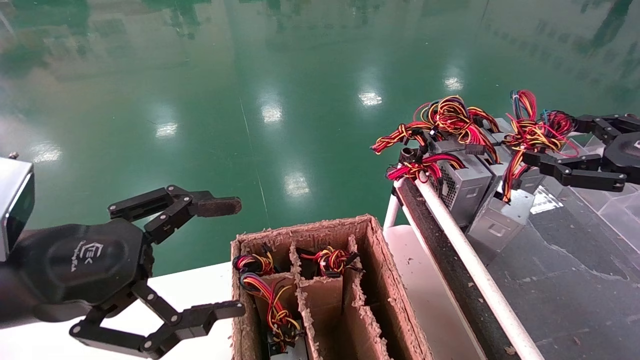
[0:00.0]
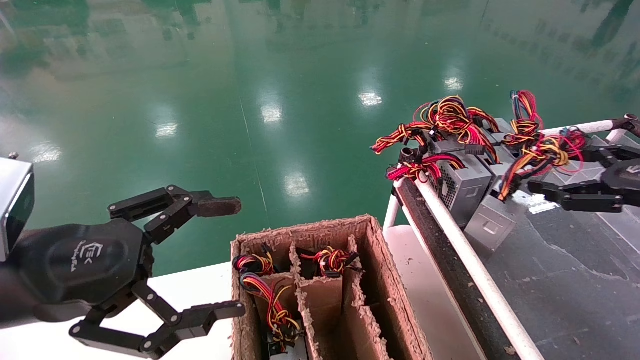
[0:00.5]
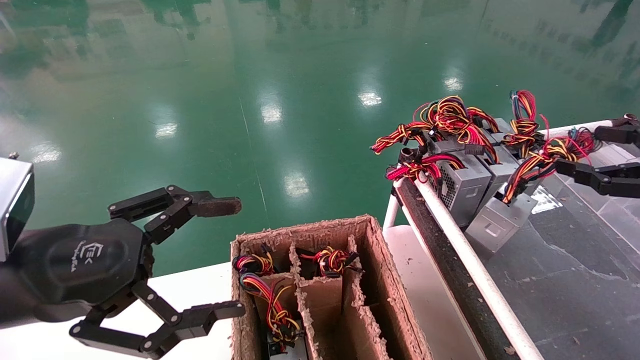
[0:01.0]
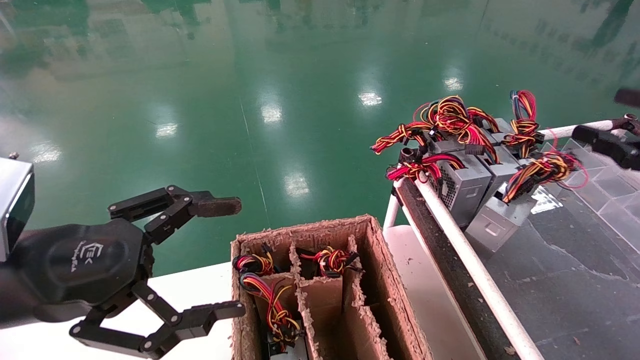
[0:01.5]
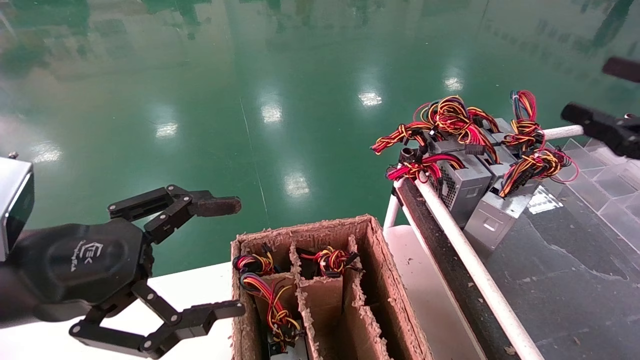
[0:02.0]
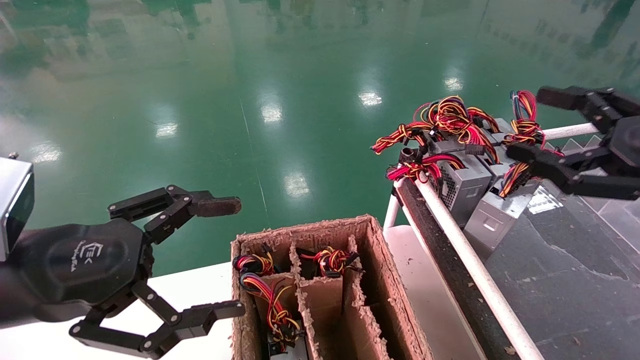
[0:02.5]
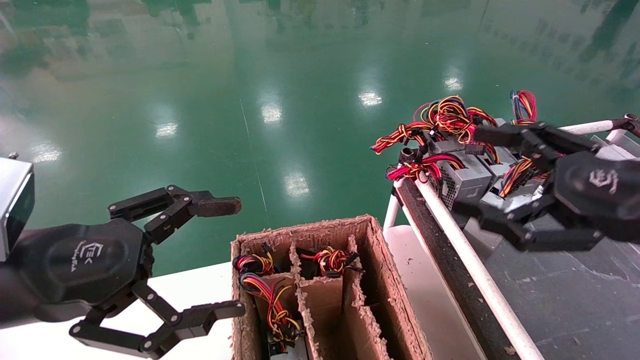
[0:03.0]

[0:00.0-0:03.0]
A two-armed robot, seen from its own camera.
0:00.0 to 0:01.5: The right gripper ends up approximately 5 cm from where it was.
0:01.5 to 0:03.0: The right gripper heads to the left, covering approximately 15 cm.

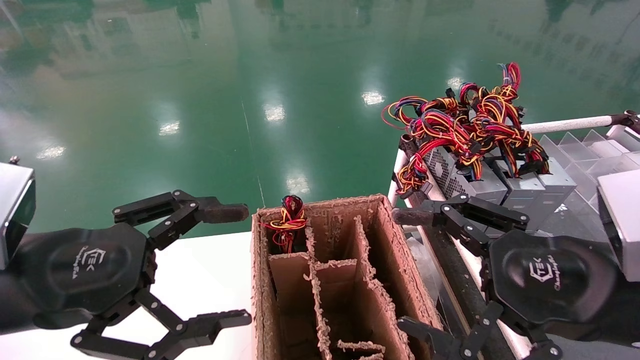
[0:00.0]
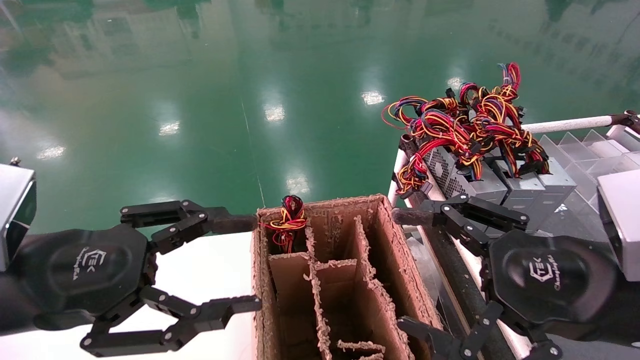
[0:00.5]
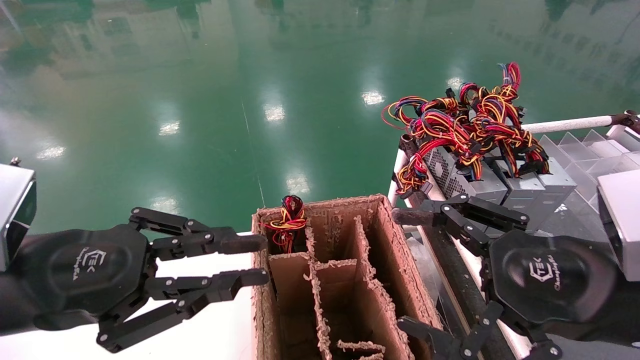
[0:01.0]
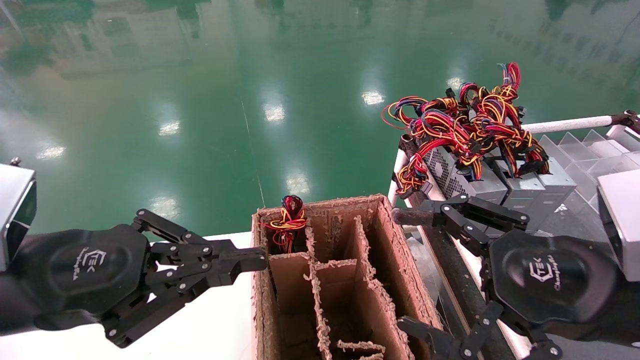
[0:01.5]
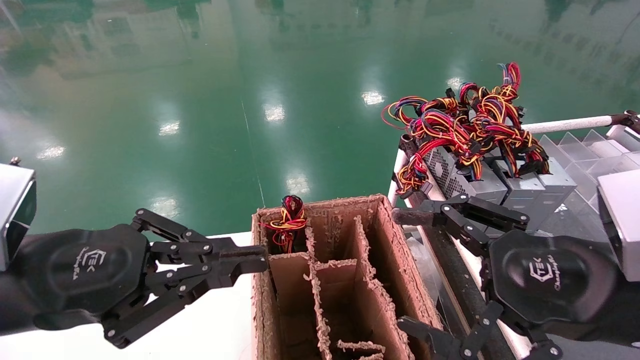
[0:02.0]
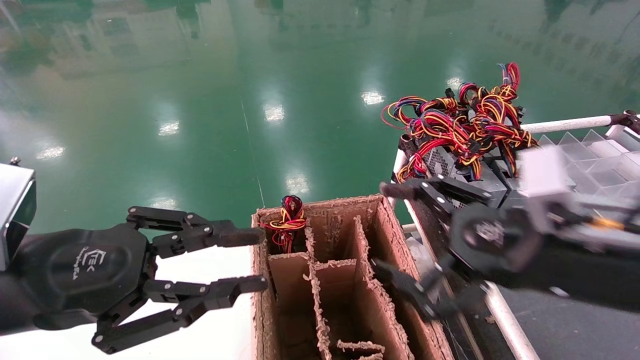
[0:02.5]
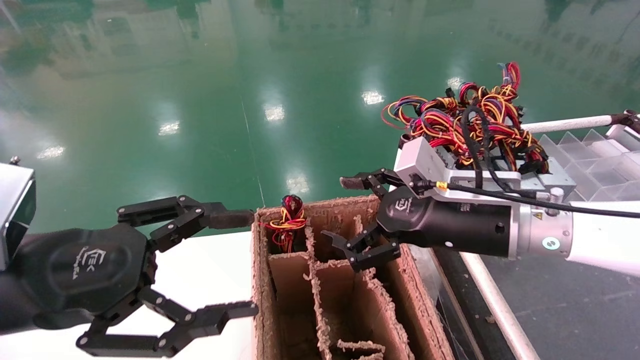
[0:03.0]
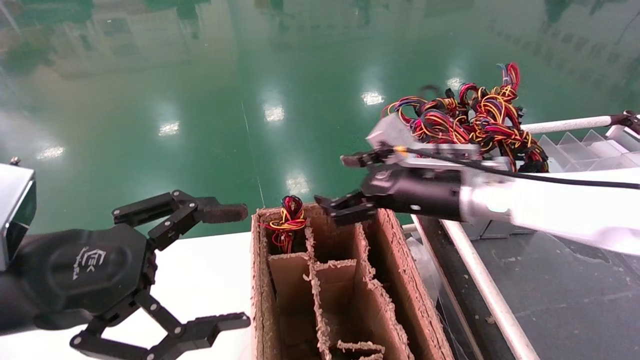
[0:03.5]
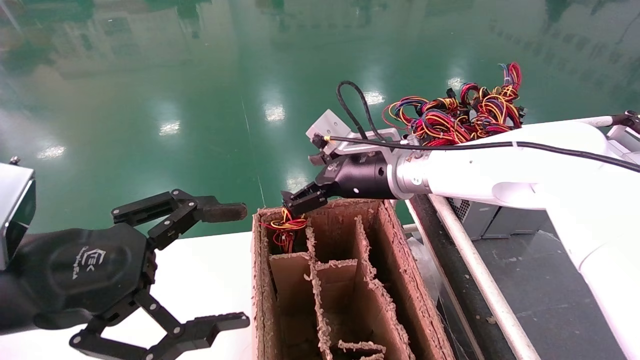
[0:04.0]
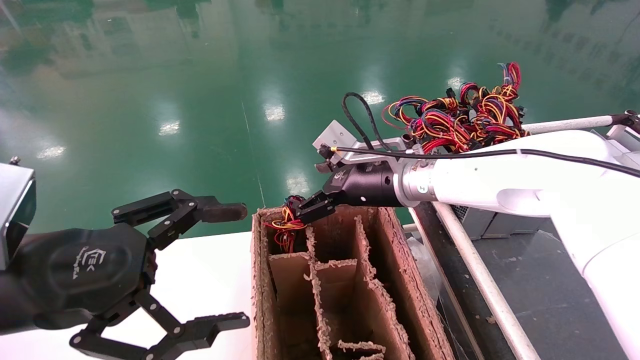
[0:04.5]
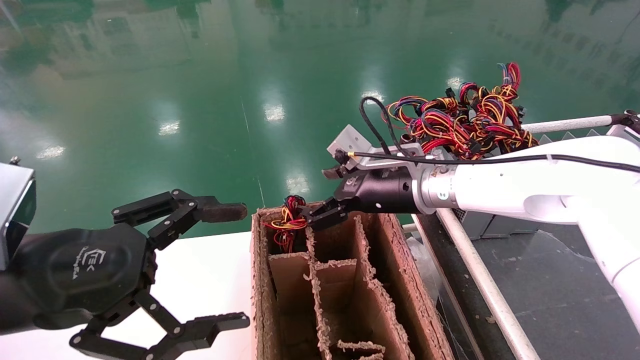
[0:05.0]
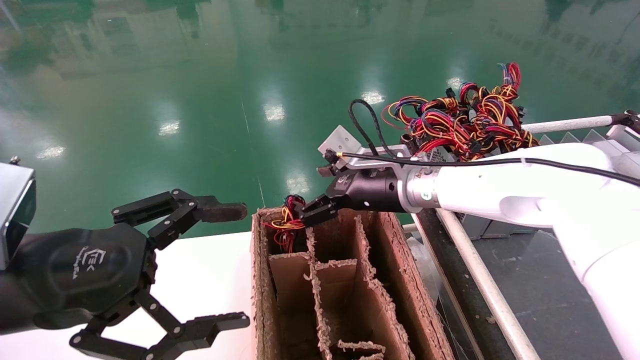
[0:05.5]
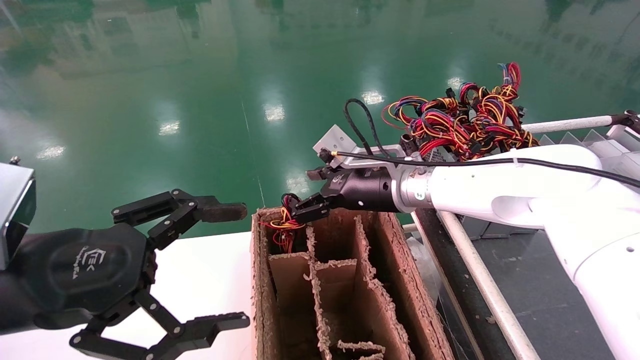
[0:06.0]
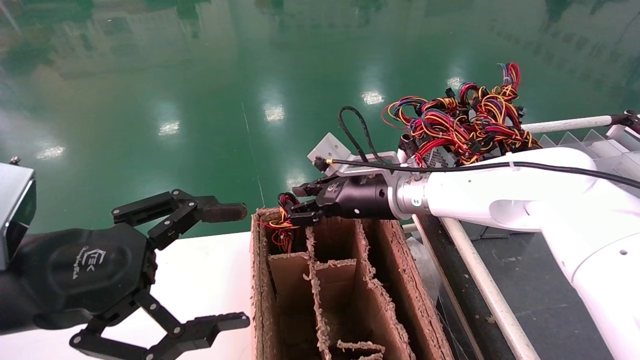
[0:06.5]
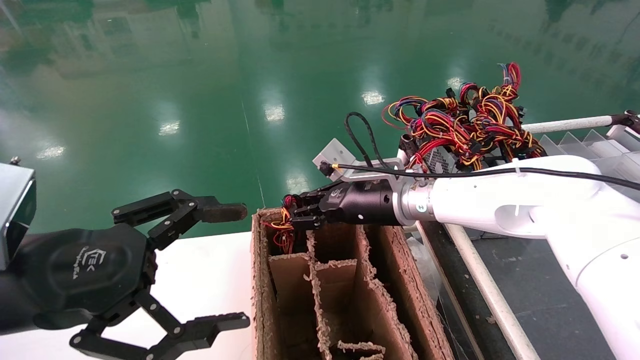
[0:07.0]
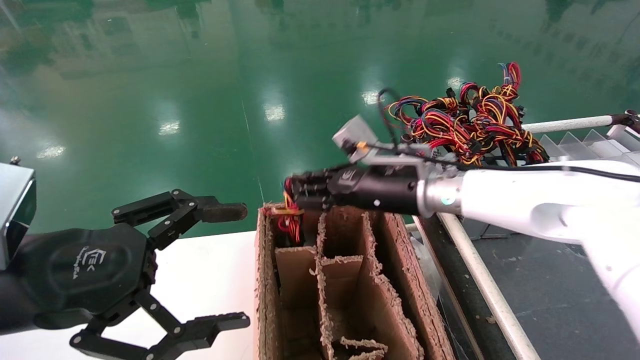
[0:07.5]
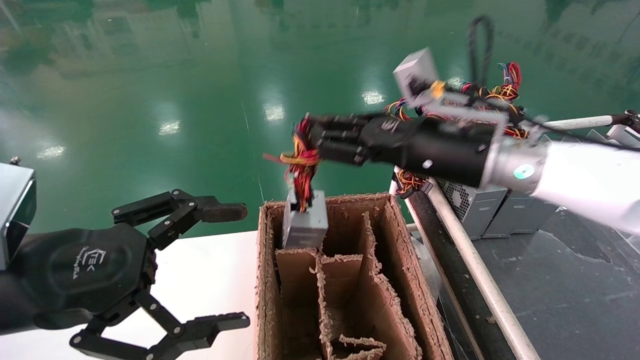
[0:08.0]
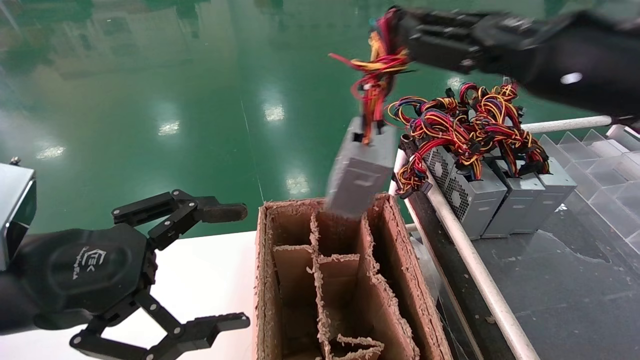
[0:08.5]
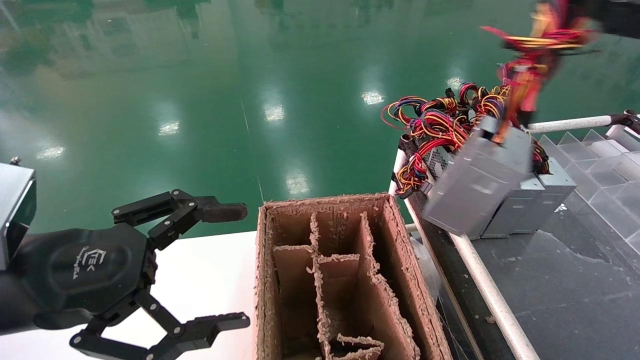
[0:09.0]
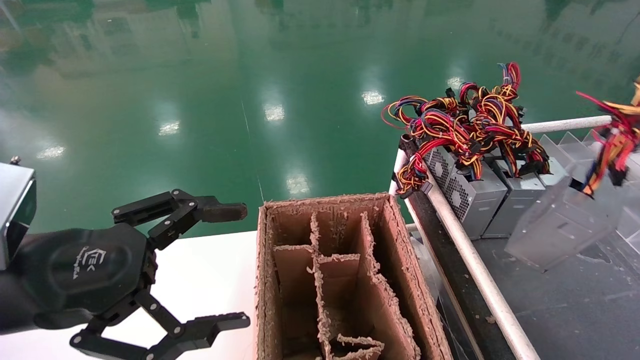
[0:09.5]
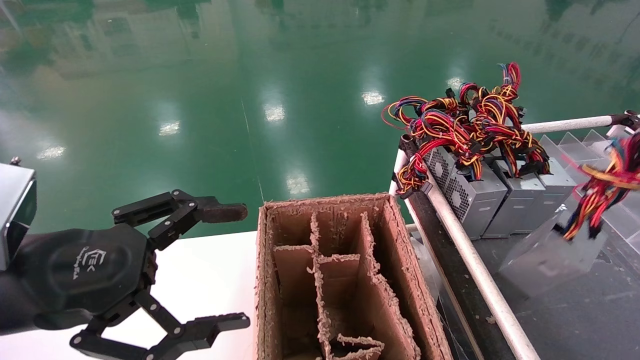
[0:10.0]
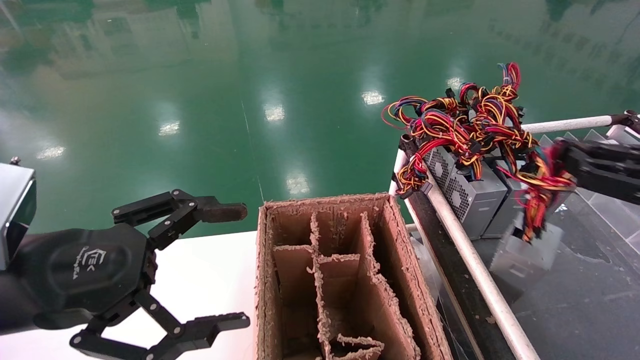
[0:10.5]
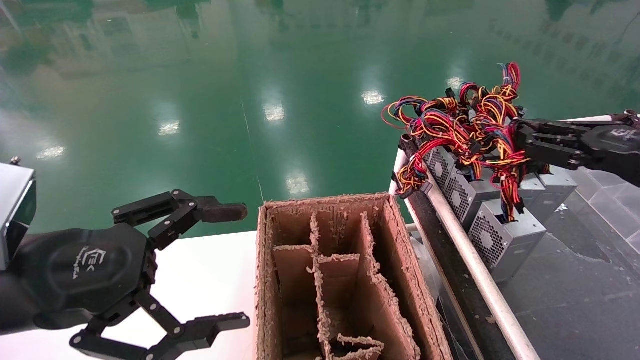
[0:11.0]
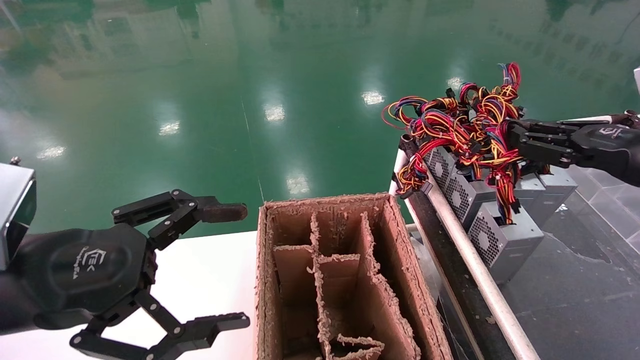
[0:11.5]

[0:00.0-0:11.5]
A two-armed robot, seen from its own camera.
Step, 0:01.5 to 0:06.5: Grab and lift the power supply from the large box.
0:00.0 to 0:02.0: The left gripper closes up.
0:02.0 to 0:04.0: The right gripper travels forward and to the left by about 30 cm; the left gripper opens its fingers.
0:04.0 to 0:06.0: There are only small adjustments of the grippers.
0:06.0 to 0:07.5: The right gripper closes up.
0:07.5 to 0:09.5: The right gripper shifts approximately 40 cm to the right and backward.
0:09.5 to 0:11.5: The right gripper shifts about 15 cm forward.

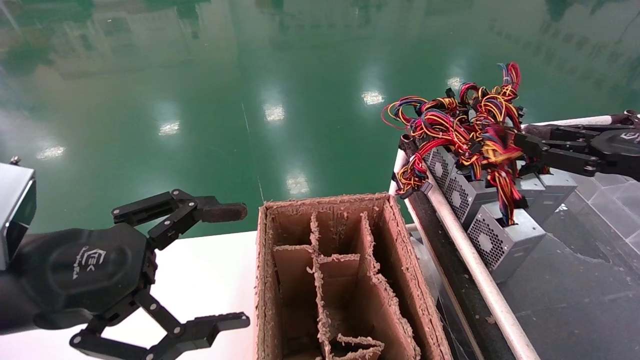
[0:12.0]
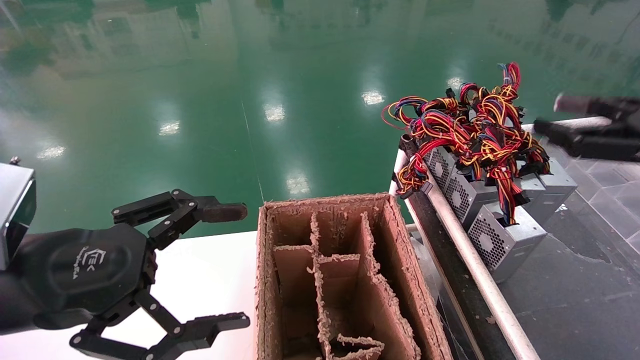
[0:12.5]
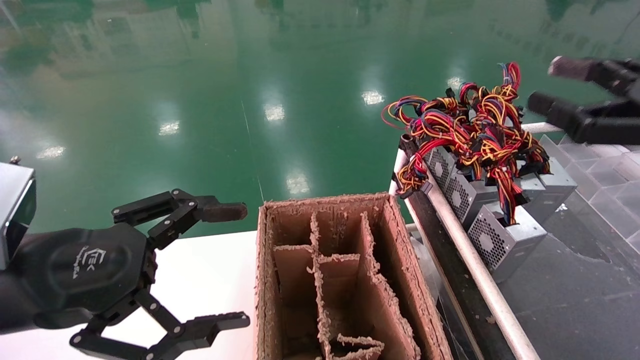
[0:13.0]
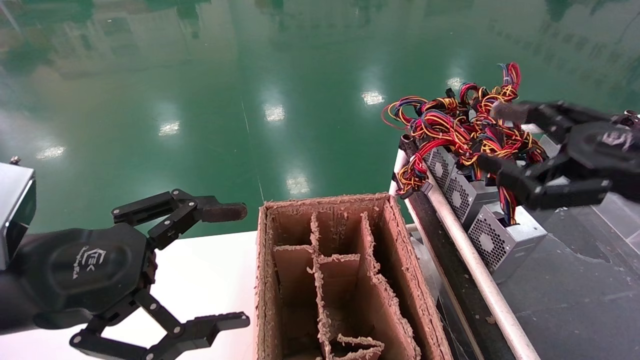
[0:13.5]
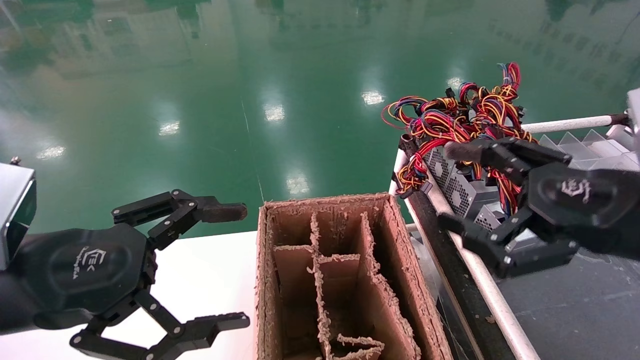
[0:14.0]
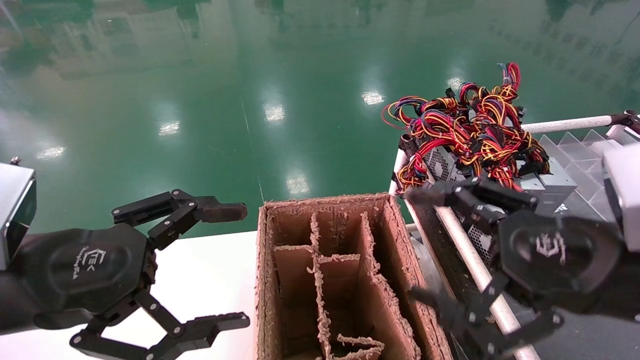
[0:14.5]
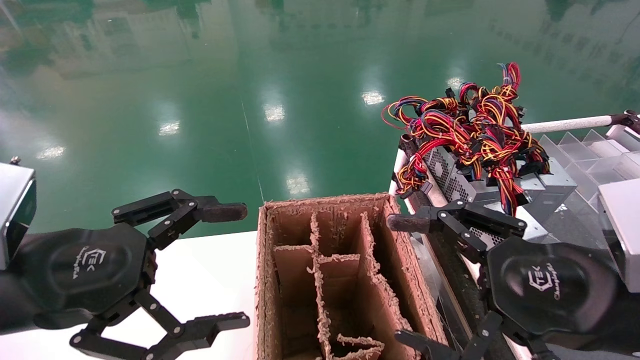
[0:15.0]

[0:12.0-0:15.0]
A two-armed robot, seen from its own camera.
0:12.0 to 0:13.5: The right gripper moves to the left and backward, about 10 cm, and opens up.
0:13.5 to 0:15.0: The right gripper heads to the left and downward, covering about 10 cm.

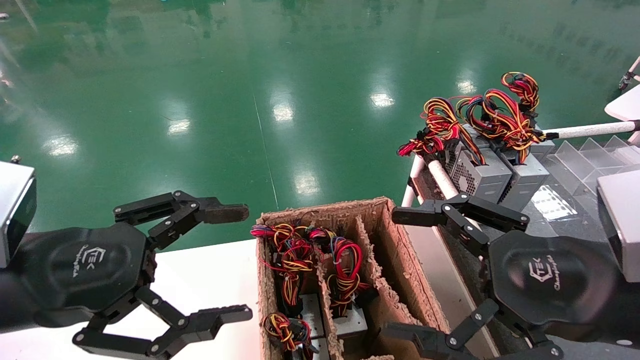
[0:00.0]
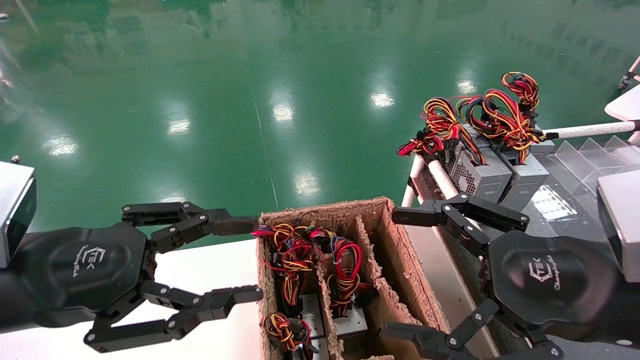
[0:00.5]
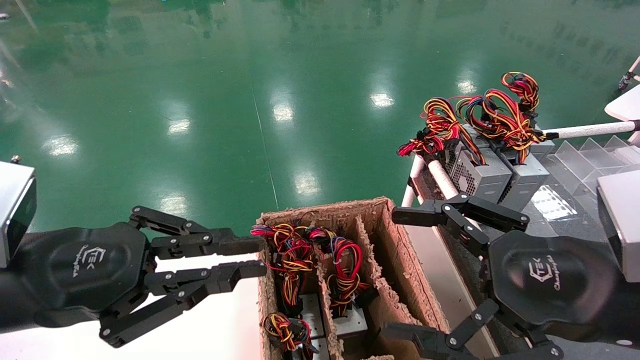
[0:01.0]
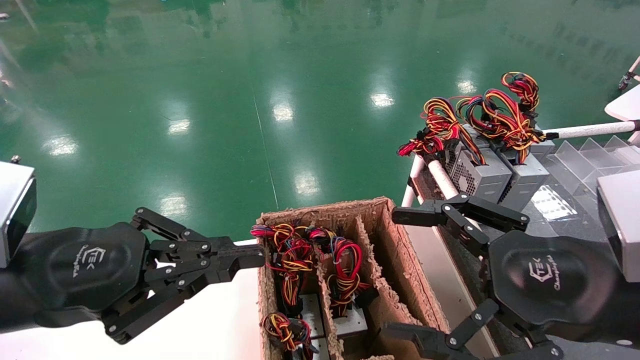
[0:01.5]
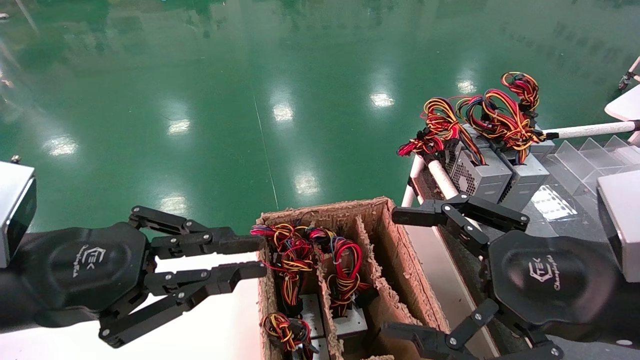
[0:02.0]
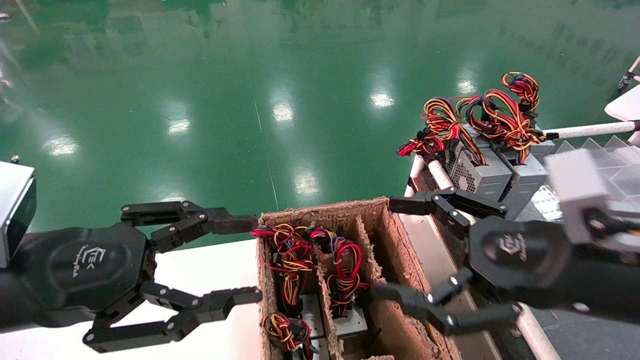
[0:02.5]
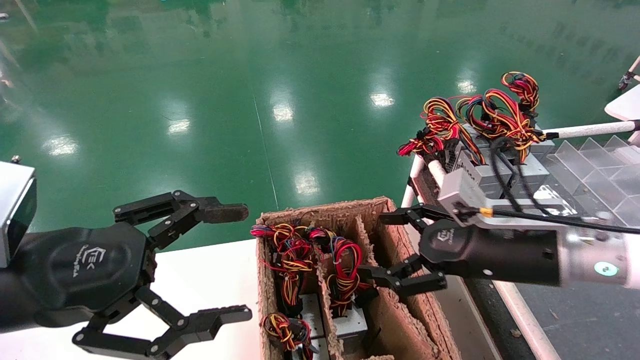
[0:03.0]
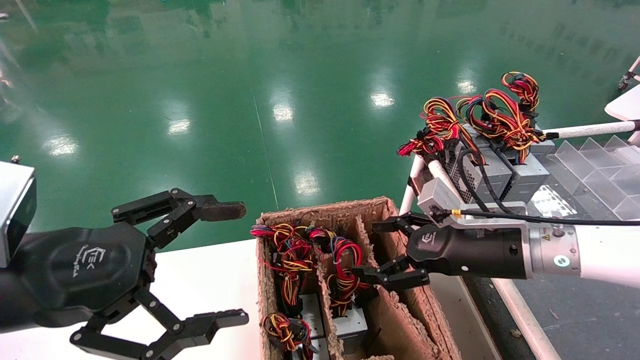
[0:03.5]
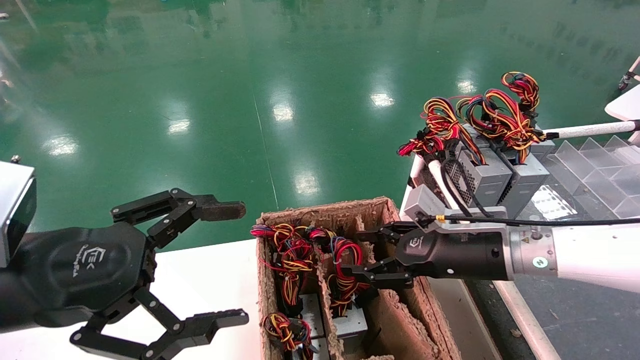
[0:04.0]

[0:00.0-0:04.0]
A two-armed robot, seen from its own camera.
0:00.0 to 0:02.0: The left gripper closes.
0:02.0 to 0:04.0: The left gripper opens, while the right gripper is displaced forward by roughly 20 cm.
